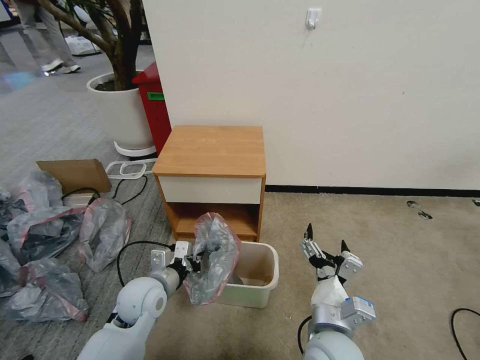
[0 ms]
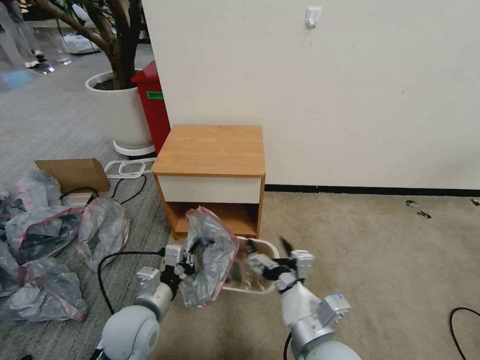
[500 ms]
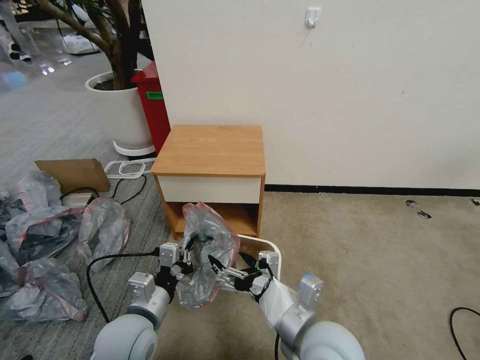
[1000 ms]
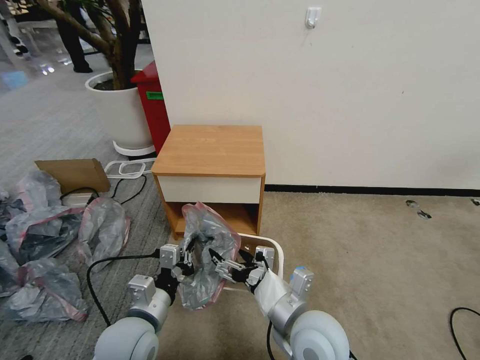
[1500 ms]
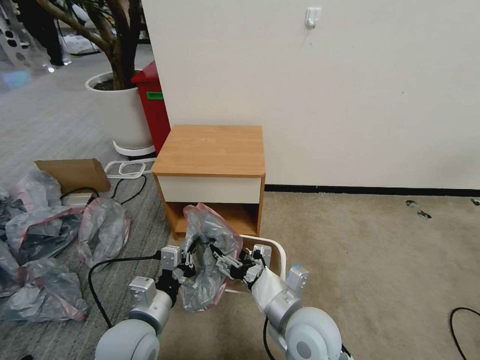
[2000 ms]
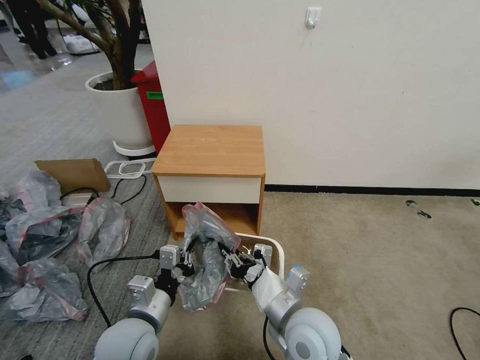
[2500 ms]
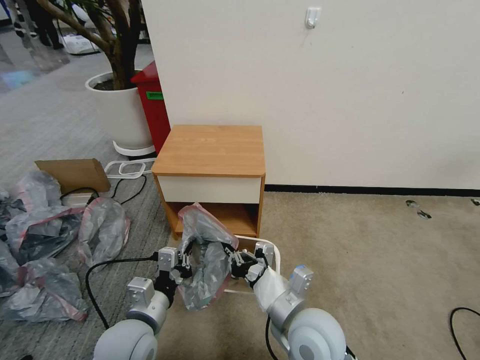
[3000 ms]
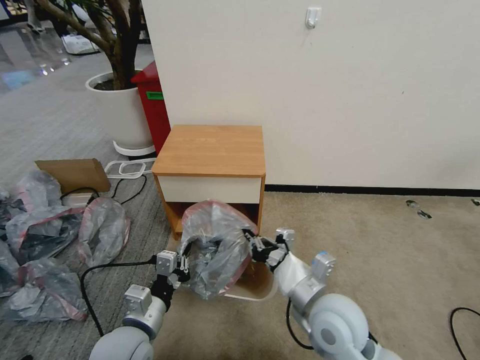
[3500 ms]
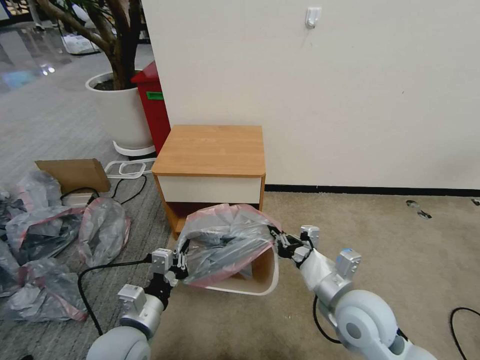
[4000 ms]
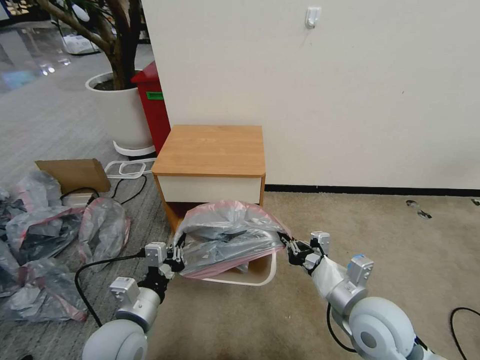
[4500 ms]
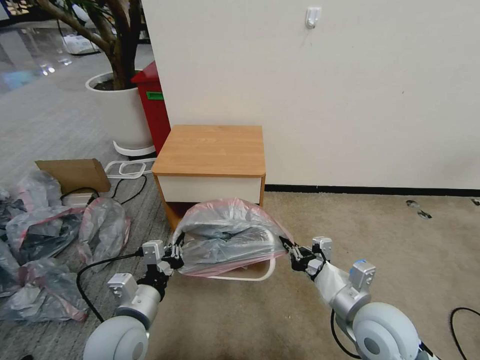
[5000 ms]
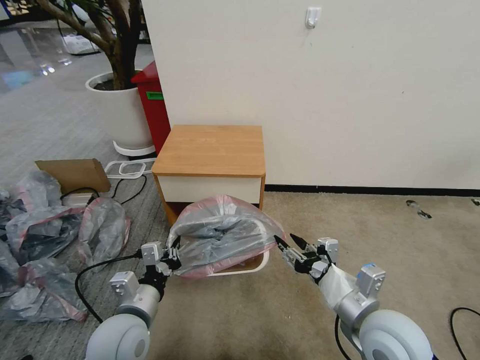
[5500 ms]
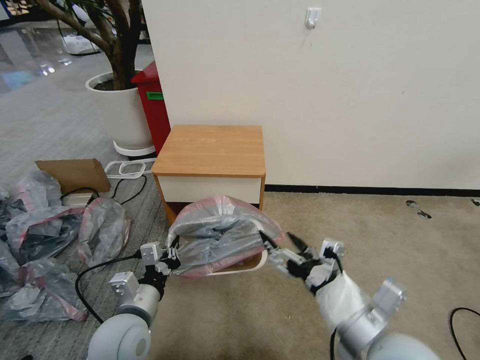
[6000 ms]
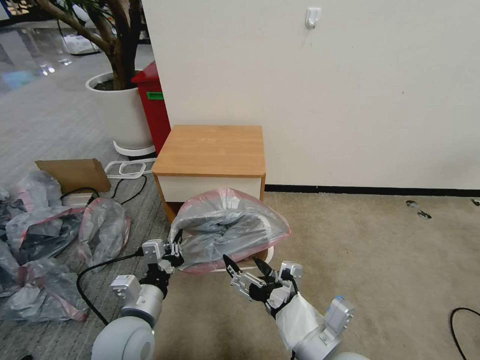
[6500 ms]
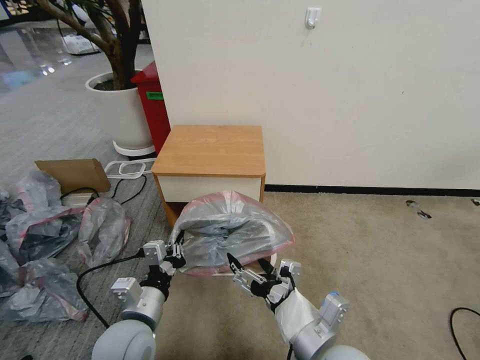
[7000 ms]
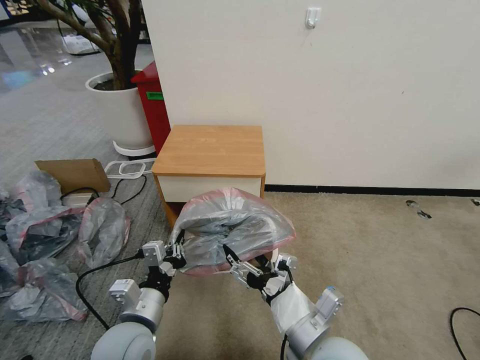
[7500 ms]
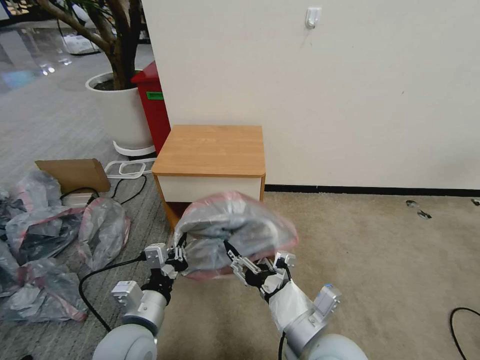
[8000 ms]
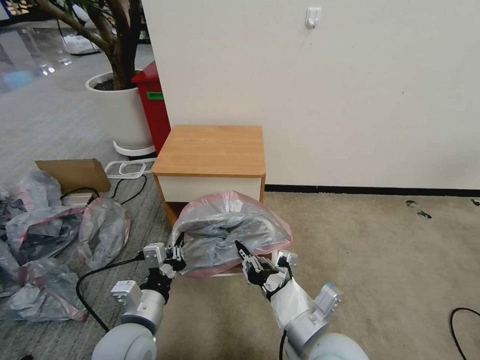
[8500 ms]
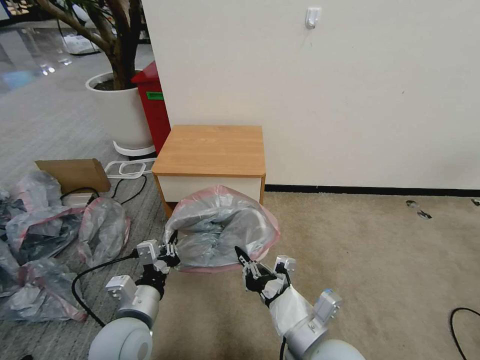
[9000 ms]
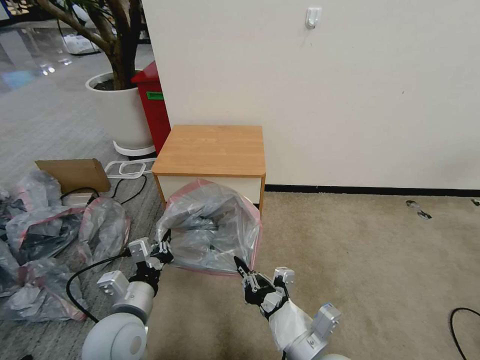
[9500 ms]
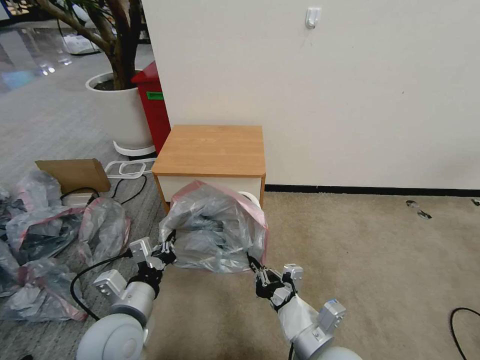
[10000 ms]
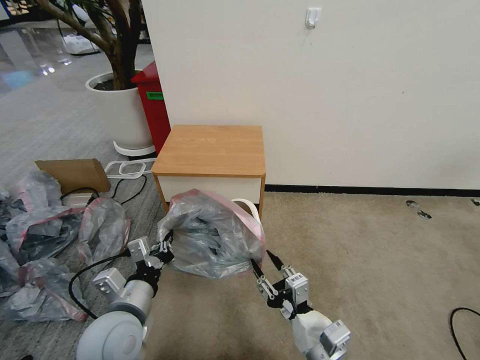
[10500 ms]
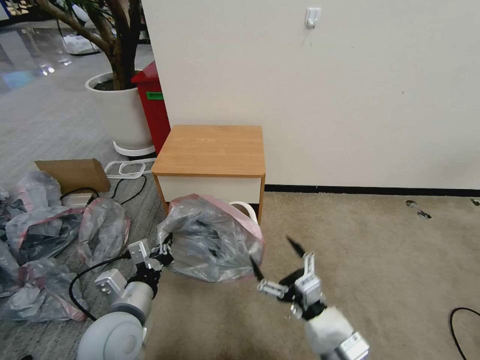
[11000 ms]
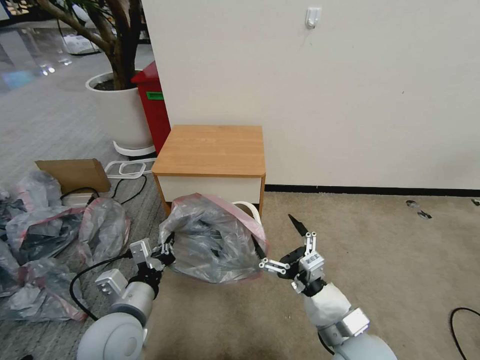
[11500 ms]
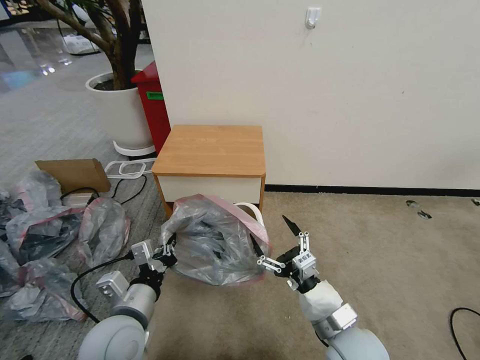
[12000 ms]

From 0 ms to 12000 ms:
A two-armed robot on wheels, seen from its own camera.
Task of the whole recording: Pick up the garbage bag from the table and place it over the trash can.
From 0 ms to 2000 ms: The left gripper heads backward, covering roughly 10 cm.
From 2000 ms to 4000 ms: The right gripper heads to the right, covering about 10 cm, and closes its fingers.
From 4000 ms to 6000 ms: The right gripper shifts some 10 cm backward and upward, and opens.
From 6000 ms to 8000 ms: The right gripper heads to the left and downward, covering approximately 10 cm.
From 8000 ms to 10000 ms: The right gripper closes its fingers.
From 10000 ms to 12000 ms: The right gripper changes place by roughly 5 cm, and opens.

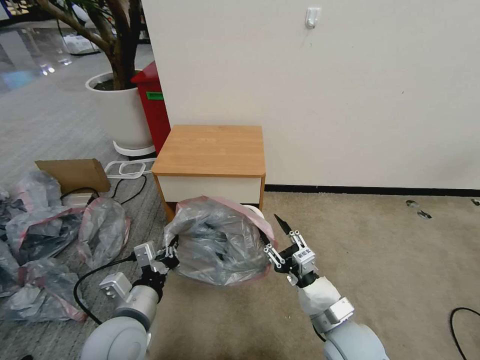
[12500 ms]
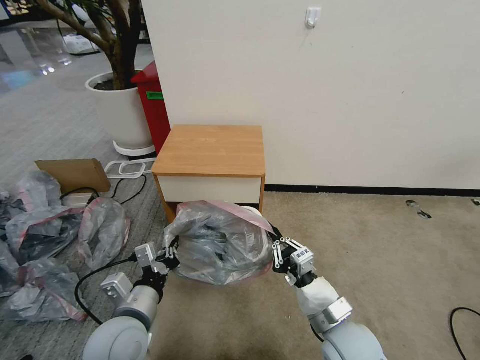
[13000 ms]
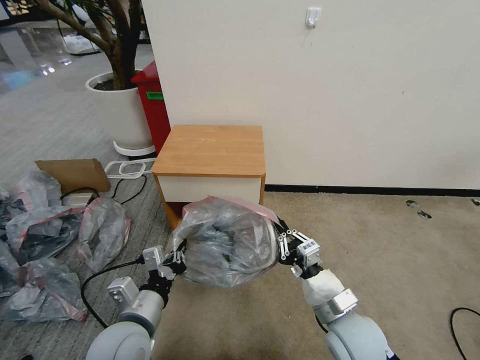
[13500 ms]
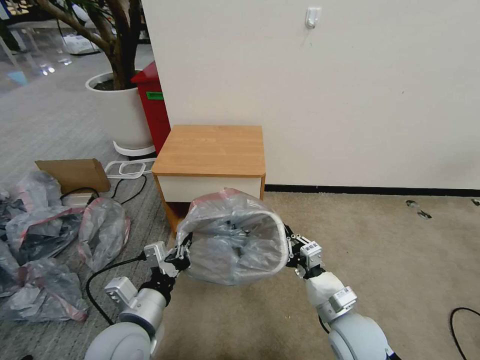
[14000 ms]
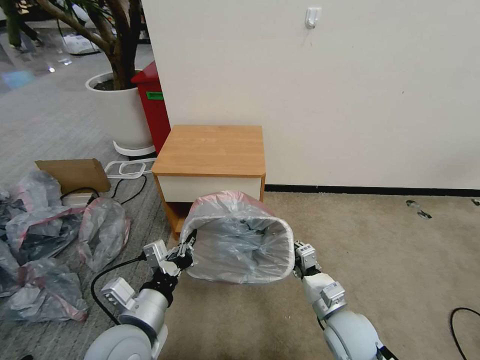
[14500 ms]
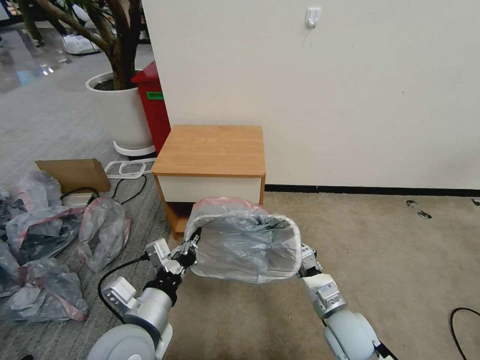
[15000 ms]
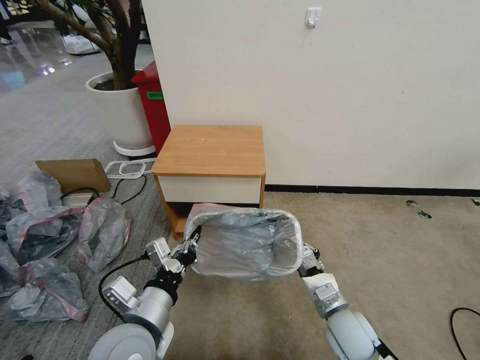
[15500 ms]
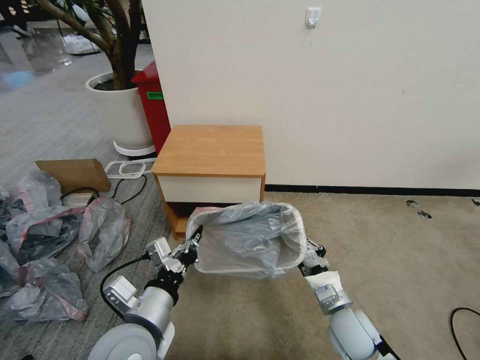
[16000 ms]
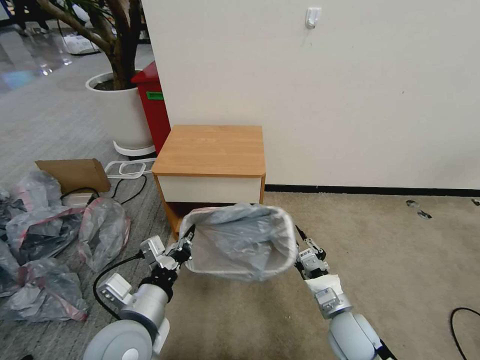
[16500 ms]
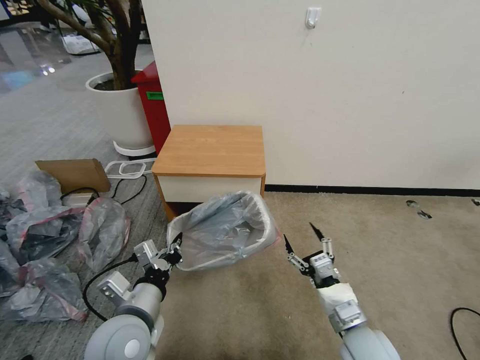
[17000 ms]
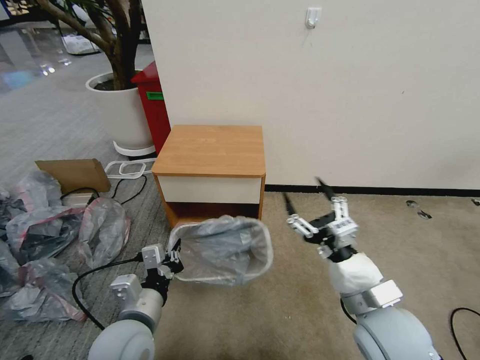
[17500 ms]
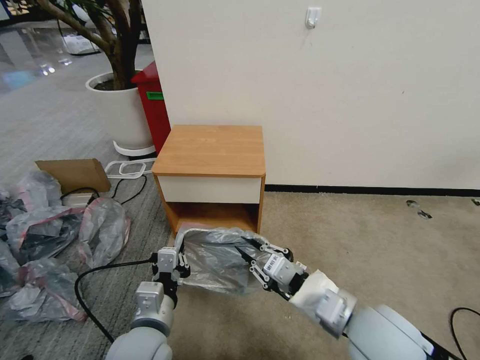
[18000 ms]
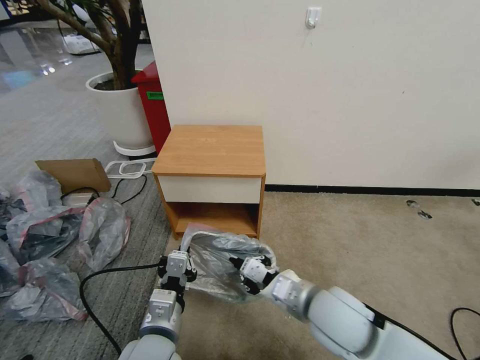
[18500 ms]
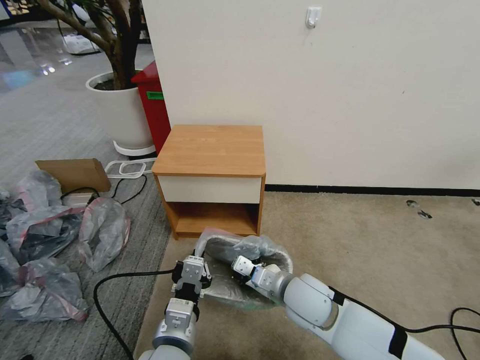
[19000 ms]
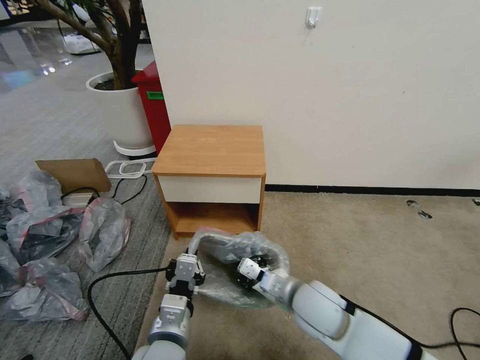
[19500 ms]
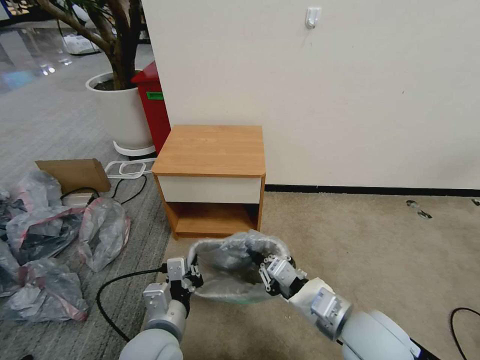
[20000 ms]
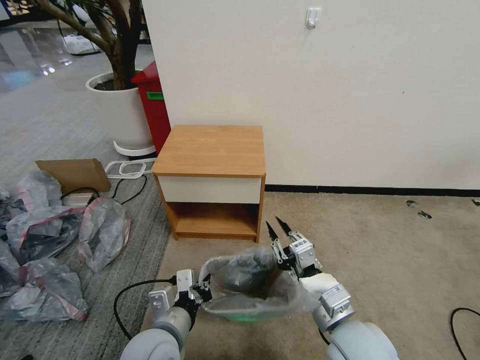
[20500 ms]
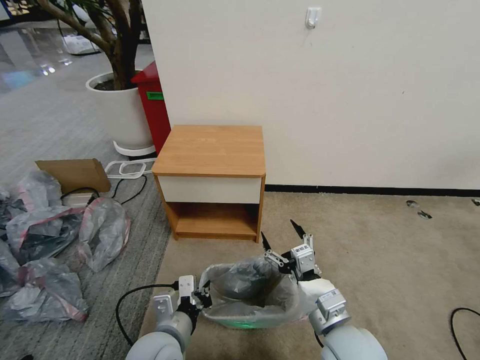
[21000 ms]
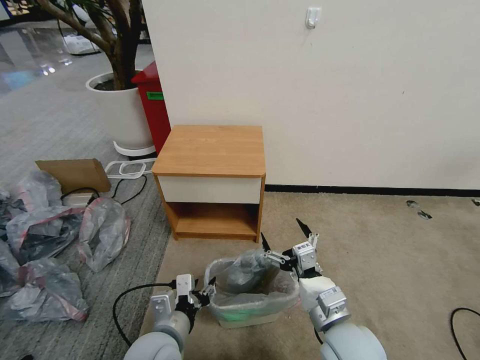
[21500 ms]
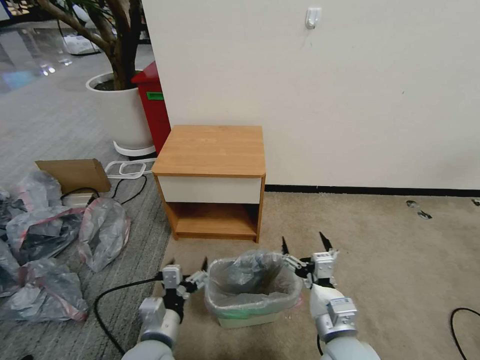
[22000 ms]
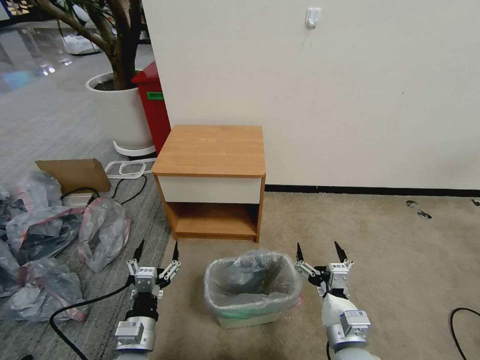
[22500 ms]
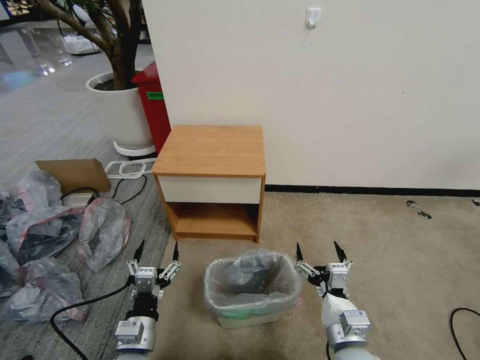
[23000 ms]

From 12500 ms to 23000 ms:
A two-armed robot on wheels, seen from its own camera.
Task of the whole recording: Pick up the garbage bag from the table and place it over the trash can.
From 12500 ms to 14500 ms: The right gripper shifts by some 5 cm, and closes.
From 16500 ms to 19000 ms: The left gripper goes roughly 5 cm to the right. The right gripper goes some 15 cm to the left, upward and forward, and opens, then closes once more.
From 19000 ms to 21000 ms: The left gripper changes place by about 5 cm. The right gripper shifts about 10 cm backward, and opens up.
From 21000 ms to 23000 ms: The right gripper goes roughly 5 cm downward; the left gripper travels to the left by some 5 cm, and opens.
